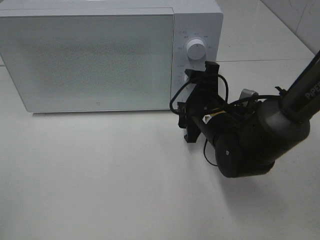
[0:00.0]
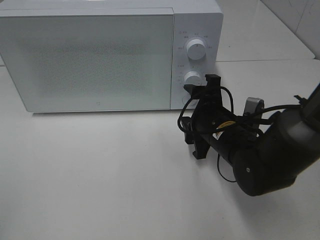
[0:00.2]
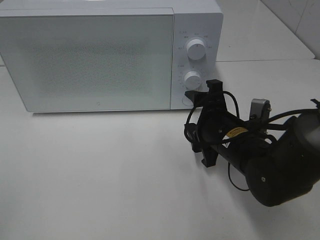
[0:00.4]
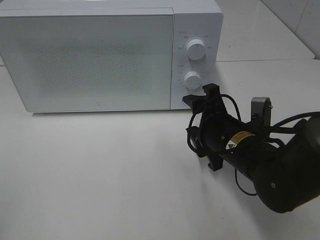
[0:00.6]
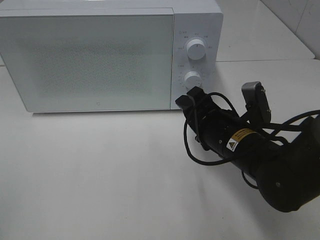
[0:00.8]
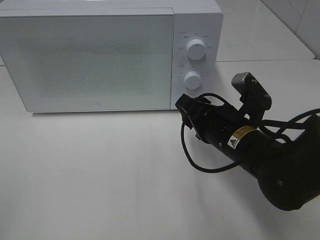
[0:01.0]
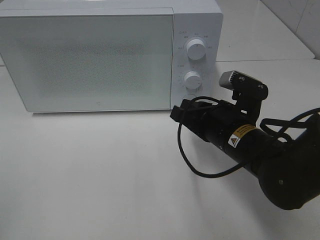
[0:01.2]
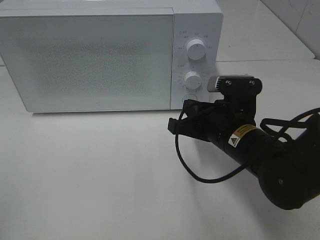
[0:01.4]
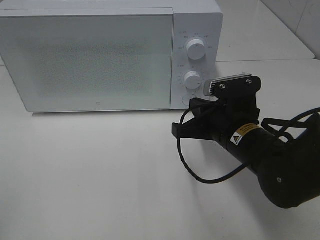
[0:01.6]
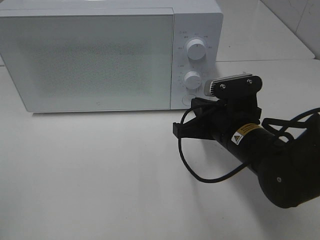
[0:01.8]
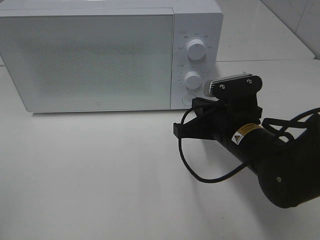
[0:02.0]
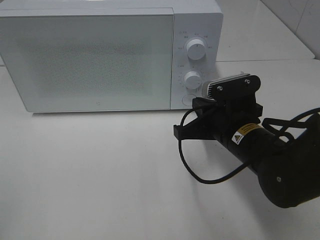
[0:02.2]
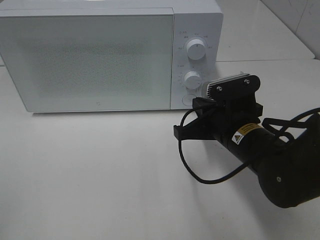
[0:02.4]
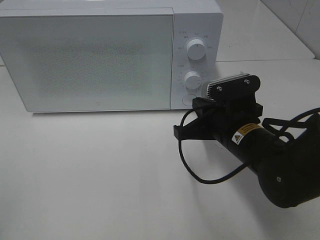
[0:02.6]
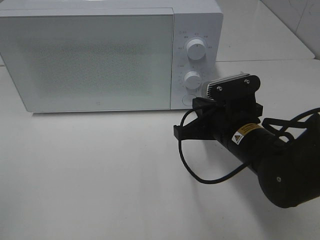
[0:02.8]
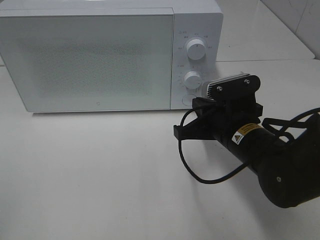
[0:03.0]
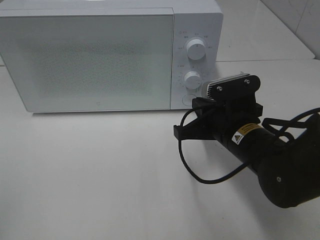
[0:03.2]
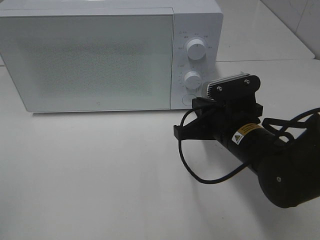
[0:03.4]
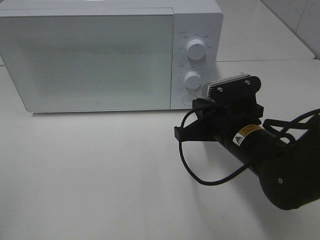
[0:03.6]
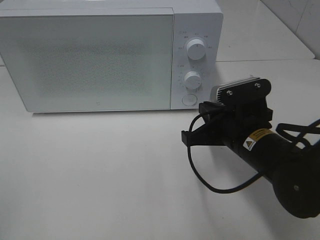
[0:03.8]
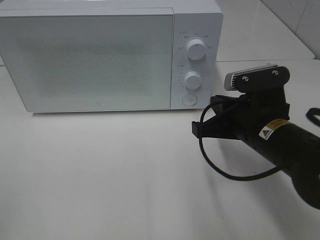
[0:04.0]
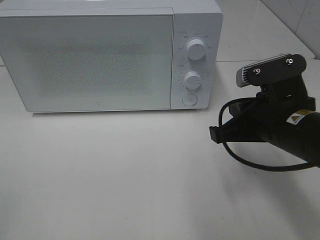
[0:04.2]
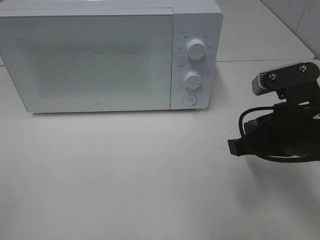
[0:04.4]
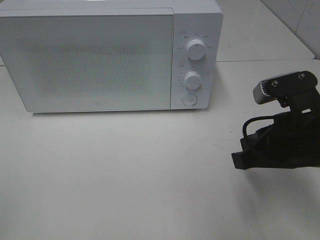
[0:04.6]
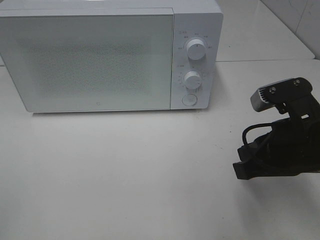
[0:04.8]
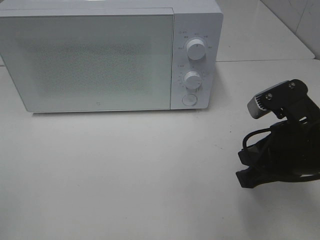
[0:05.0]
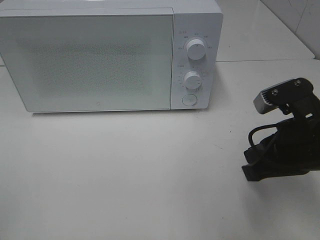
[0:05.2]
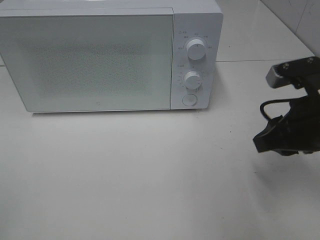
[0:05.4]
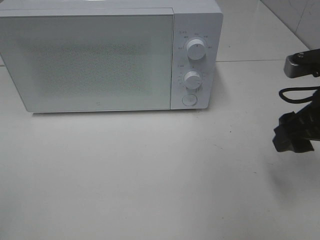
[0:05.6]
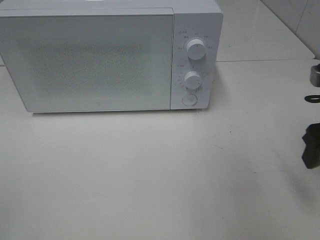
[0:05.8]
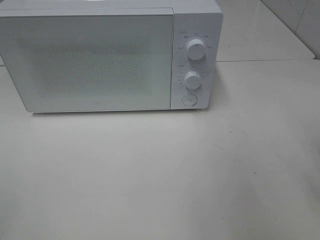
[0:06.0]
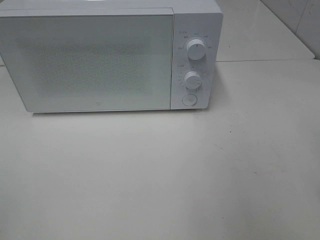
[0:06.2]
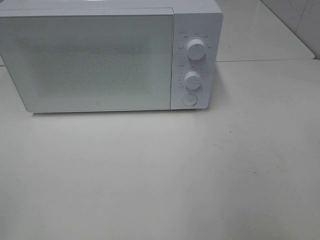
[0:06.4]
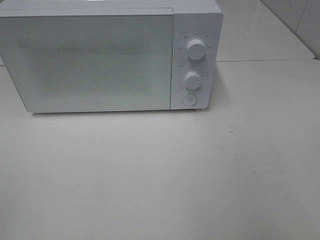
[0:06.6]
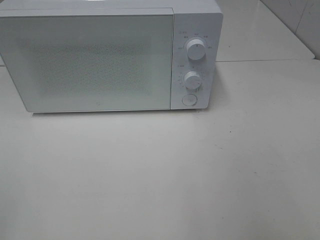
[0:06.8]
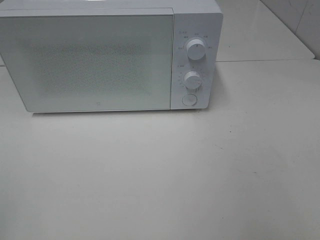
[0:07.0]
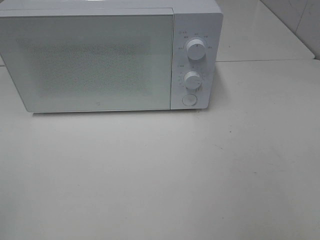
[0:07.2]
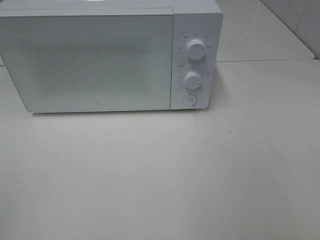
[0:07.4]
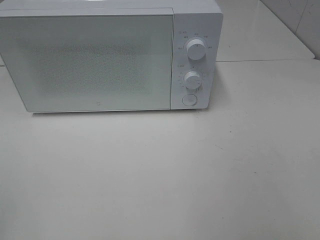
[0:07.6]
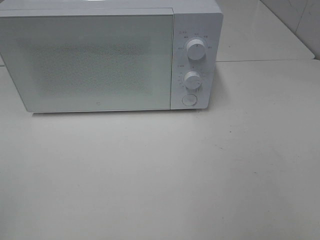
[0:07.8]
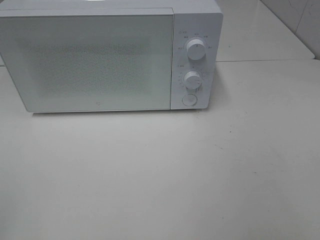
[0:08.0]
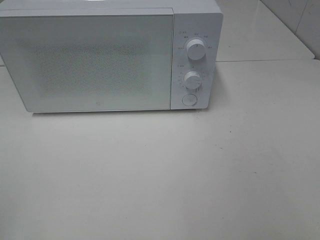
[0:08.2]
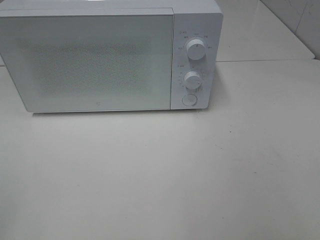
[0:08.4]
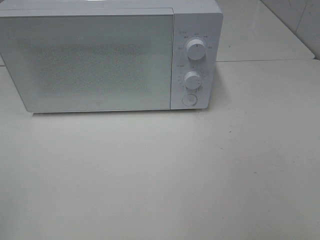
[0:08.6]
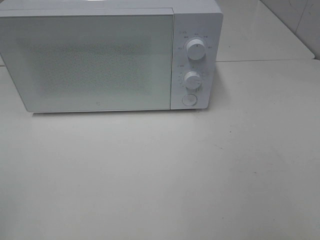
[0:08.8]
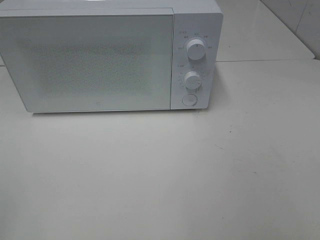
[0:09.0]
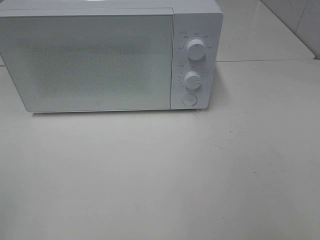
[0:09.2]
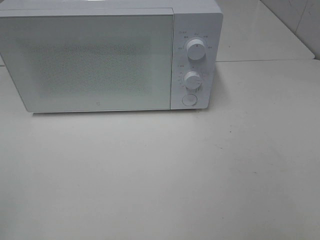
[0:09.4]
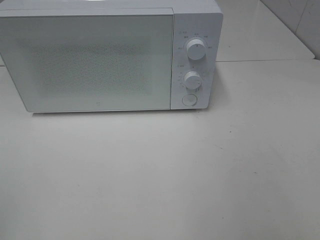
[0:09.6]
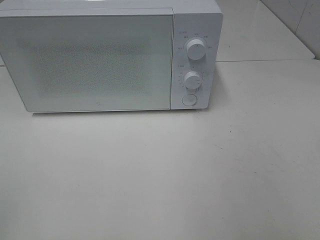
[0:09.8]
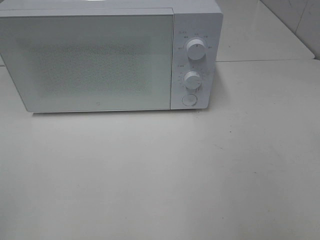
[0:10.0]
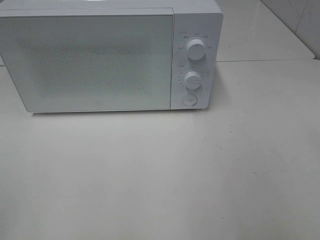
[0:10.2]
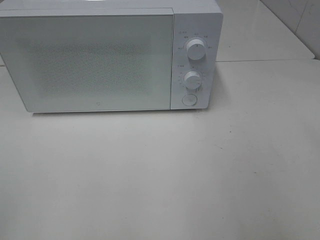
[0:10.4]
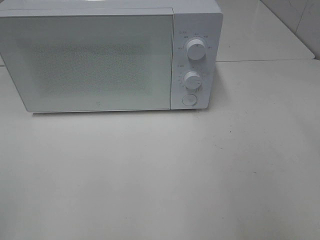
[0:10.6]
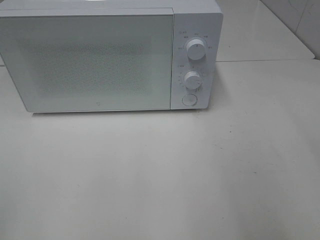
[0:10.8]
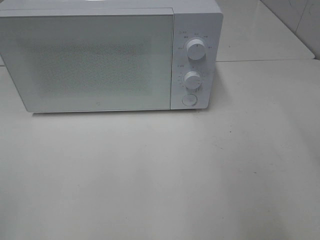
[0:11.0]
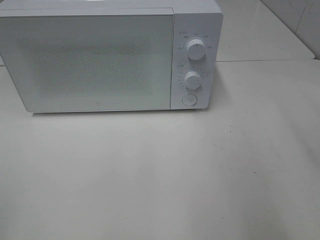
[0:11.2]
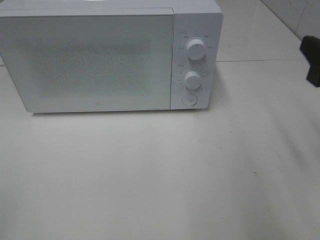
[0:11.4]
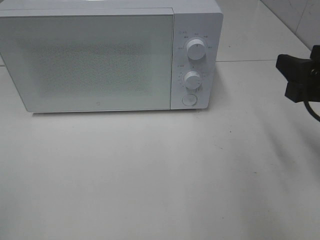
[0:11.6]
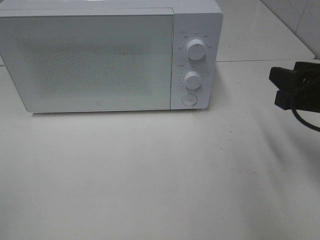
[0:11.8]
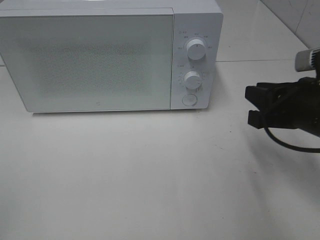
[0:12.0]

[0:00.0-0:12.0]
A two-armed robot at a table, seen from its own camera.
Task of the whole recording: Heat Sandwich.
0:00.0 to 0:01.6: The right gripper goes roughly 5 cm backward, and closes up.
0:01.6 to 0:03.0: The grippers move only a little.
0:03.0 to 0:04.4: The right gripper moves to the right, upward and backward, about 10 cm.
0:04.4 to 0:06.0: The right gripper is displaced to the right and upward by some 10 cm, and opens.
0:10.4 to 0:12.0: The right gripper shifts roughly 20 cm forward, downward and to the left, and closes.

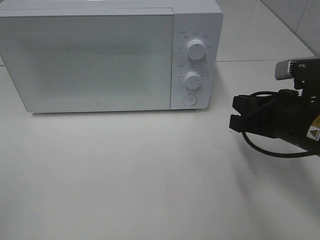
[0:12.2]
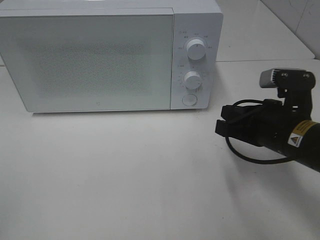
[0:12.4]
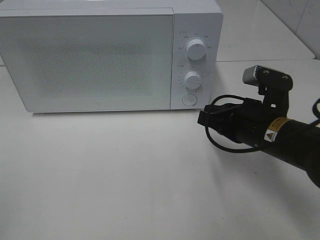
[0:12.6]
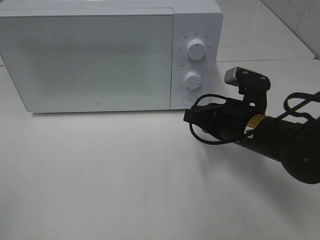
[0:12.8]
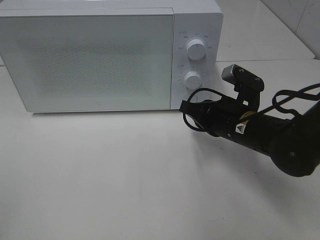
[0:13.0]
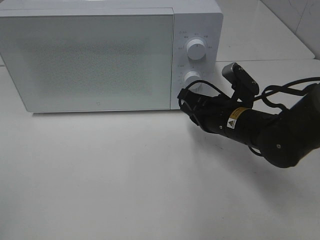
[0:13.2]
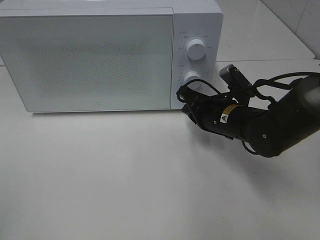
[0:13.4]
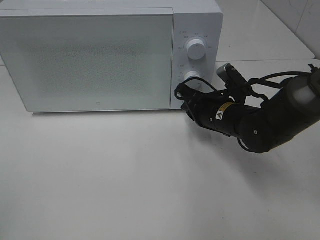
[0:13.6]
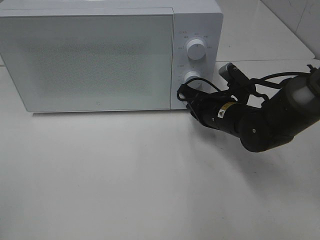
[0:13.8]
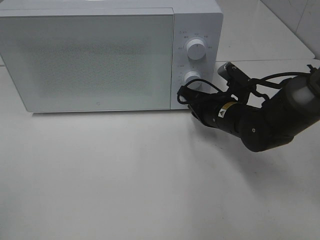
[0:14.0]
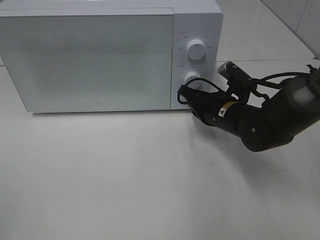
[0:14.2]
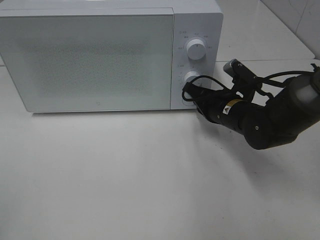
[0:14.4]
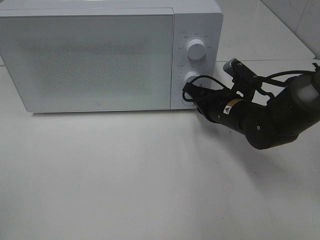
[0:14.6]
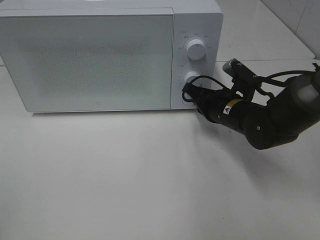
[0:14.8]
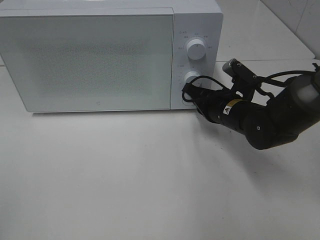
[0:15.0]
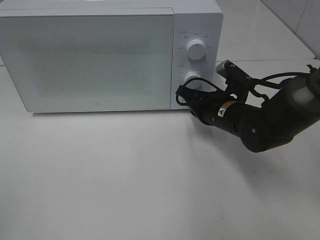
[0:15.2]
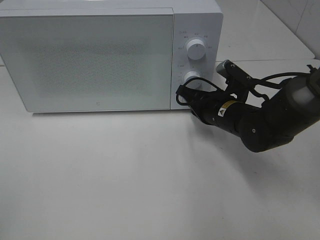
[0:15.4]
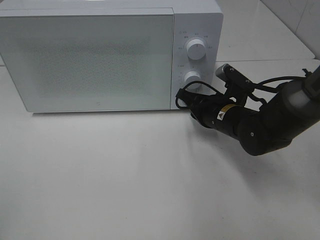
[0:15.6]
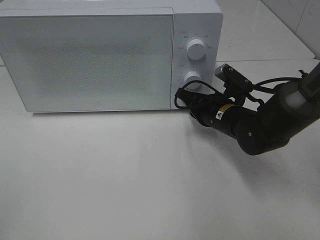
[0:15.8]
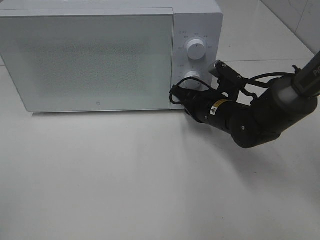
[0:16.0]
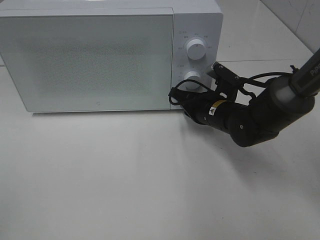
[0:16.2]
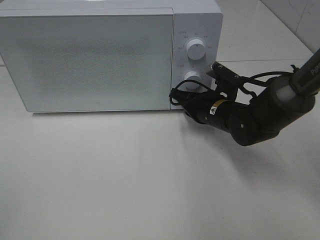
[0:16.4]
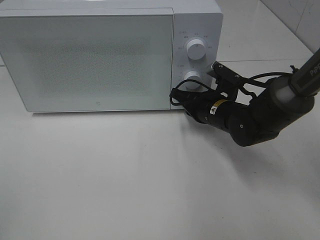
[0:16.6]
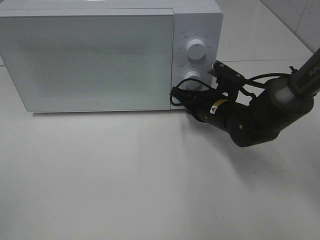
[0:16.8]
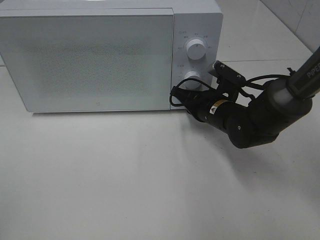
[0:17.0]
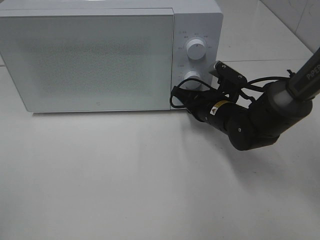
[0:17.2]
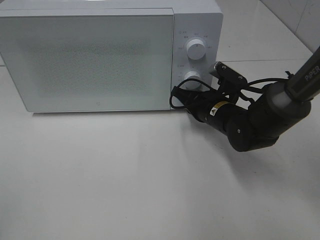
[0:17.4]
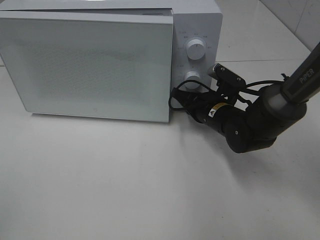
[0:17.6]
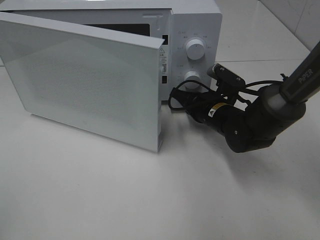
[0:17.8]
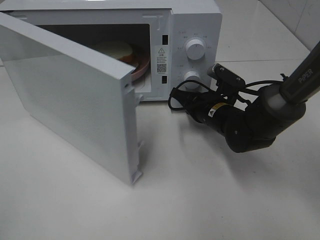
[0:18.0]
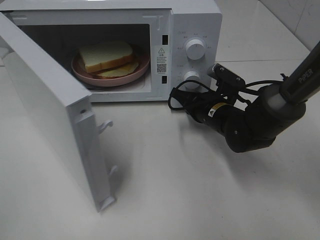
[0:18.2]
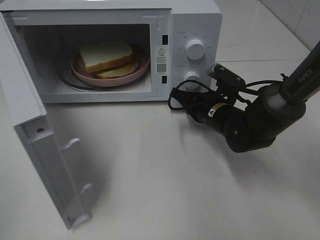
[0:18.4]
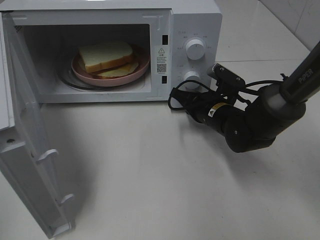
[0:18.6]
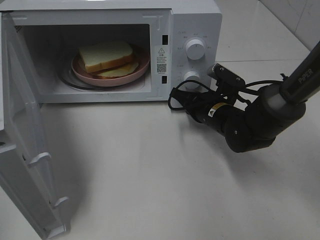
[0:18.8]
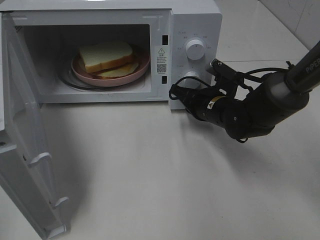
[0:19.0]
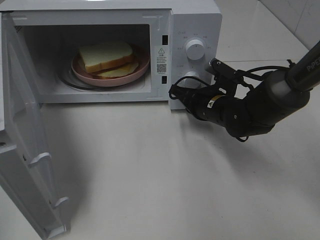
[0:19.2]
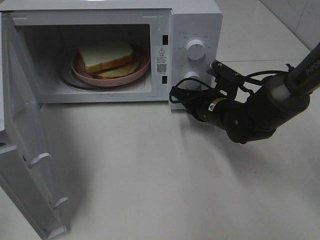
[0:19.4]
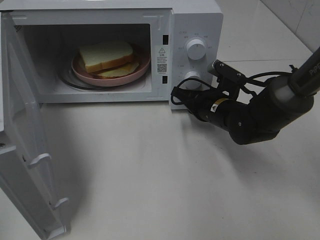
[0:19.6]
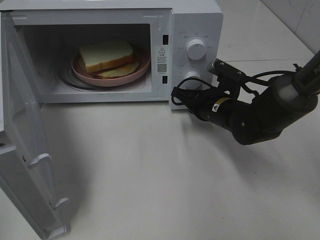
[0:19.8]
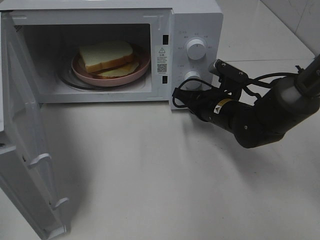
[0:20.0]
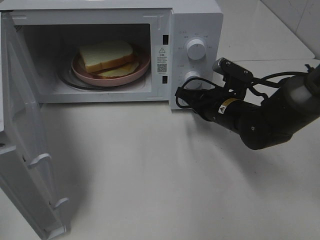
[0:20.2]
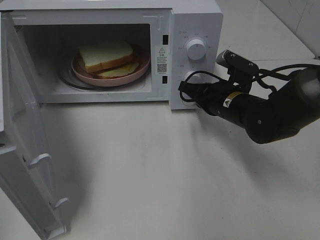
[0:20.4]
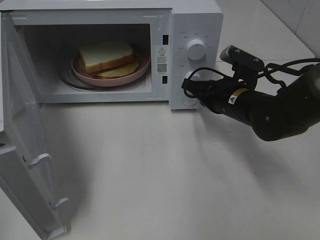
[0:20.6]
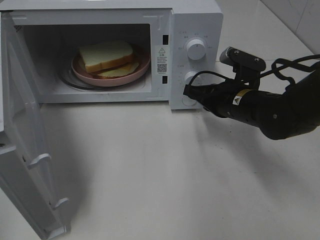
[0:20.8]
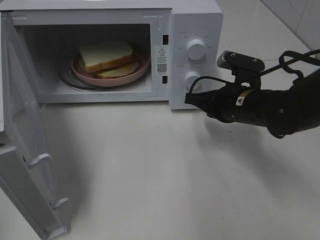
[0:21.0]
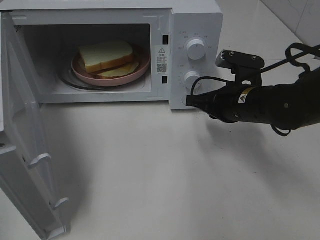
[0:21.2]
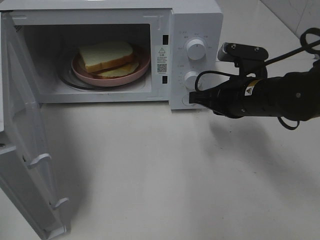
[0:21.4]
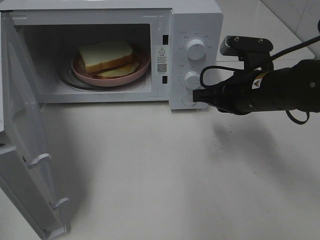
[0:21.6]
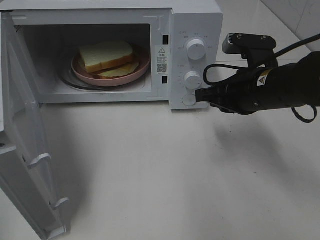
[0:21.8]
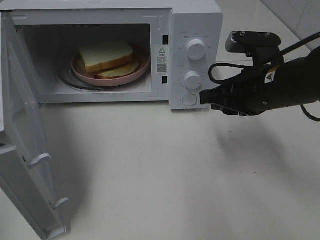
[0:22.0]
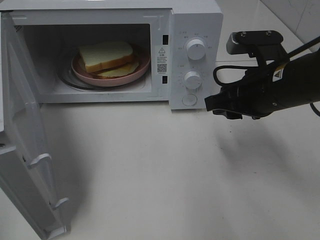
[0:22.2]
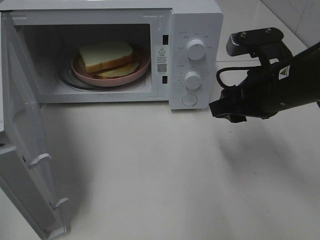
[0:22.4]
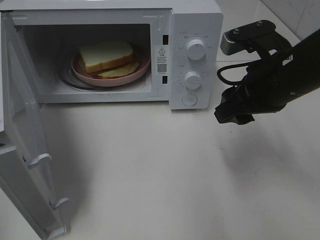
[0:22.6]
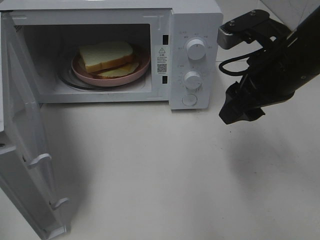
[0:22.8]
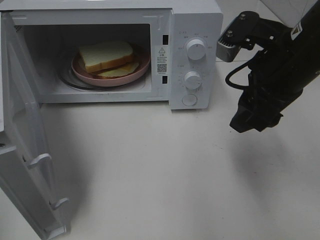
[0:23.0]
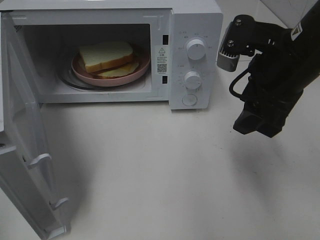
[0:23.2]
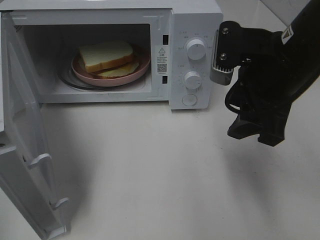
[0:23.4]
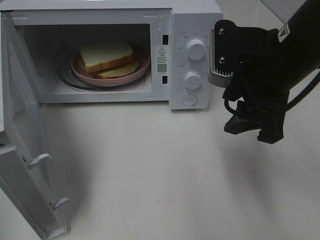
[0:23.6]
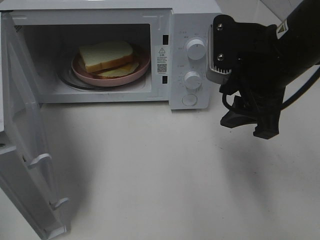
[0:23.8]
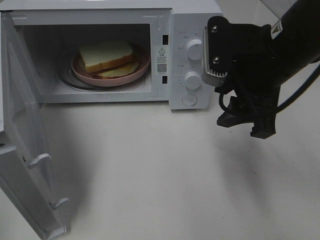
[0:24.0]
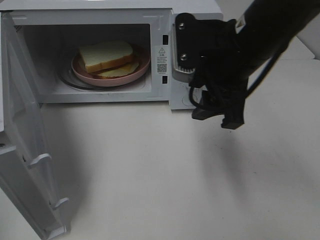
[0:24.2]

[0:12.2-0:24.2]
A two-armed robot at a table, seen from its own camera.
Task of the whole recording: Heat Sandwich.
Step, 0:12.2 to 0:21.0: Right hand: press the switch.
0:12.2 to 0:13.8: The right gripper heads forward, downward and to the left, covering approximately 15 cm.
0:13.8 to 0:16.6: The grippers make only small movements.
0:19.8 to 0:21.2: The right gripper travels upward by approximately 5 cm.
0:21.2 to 0:22.6: The right gripper shifts about 10 cm upward, and opens its fingers.
0:22.6 to 0:24.2: The right gripper shifts approximately 5 cm to the left.
